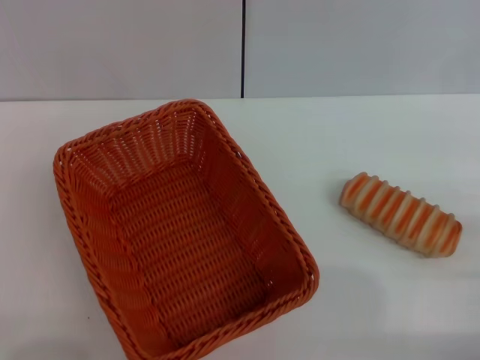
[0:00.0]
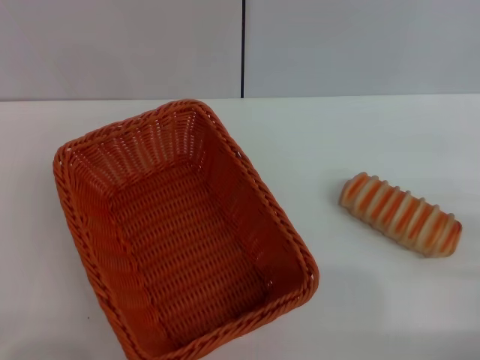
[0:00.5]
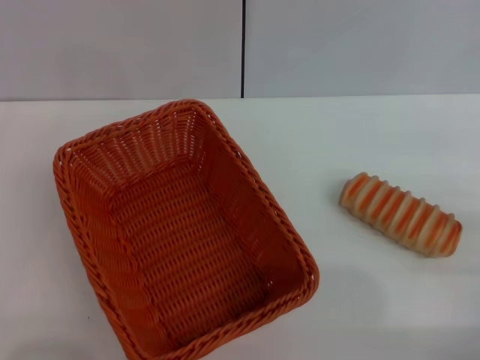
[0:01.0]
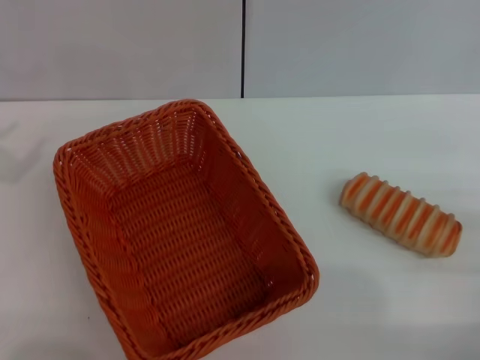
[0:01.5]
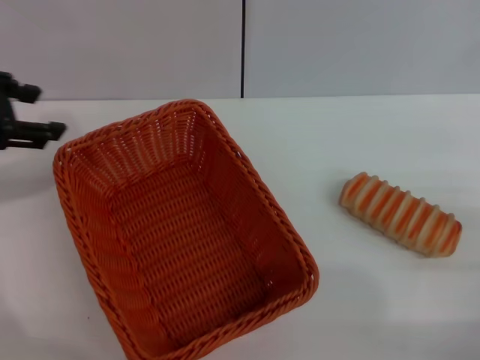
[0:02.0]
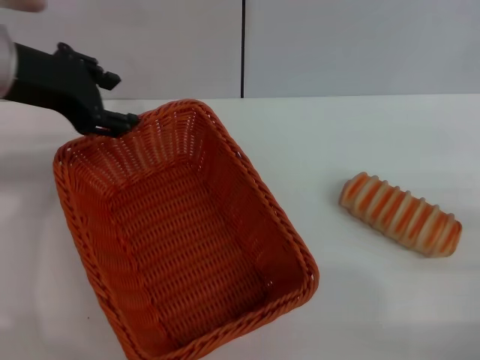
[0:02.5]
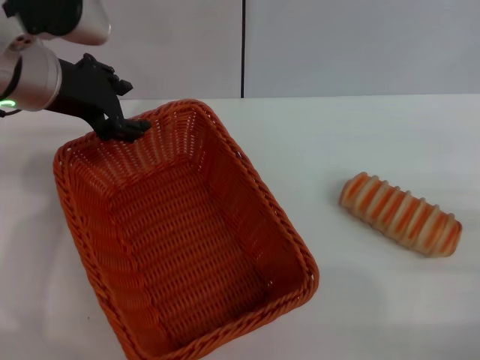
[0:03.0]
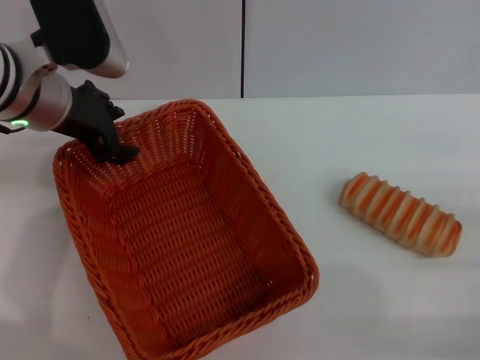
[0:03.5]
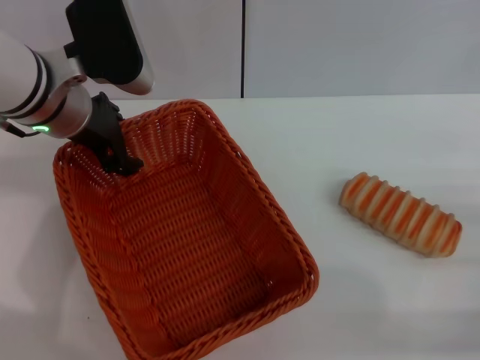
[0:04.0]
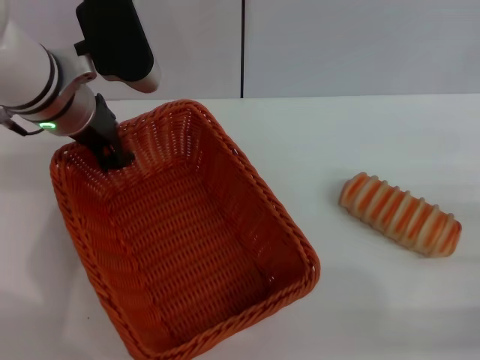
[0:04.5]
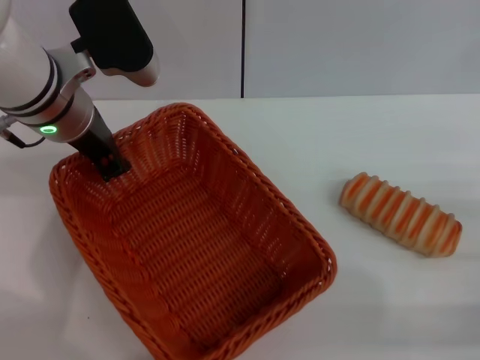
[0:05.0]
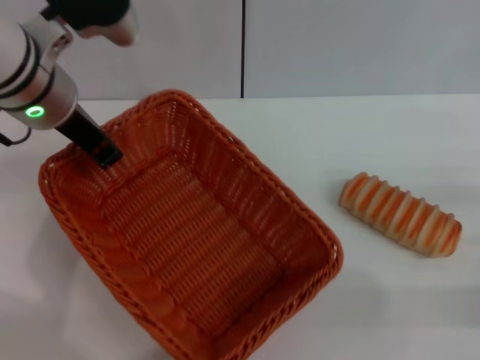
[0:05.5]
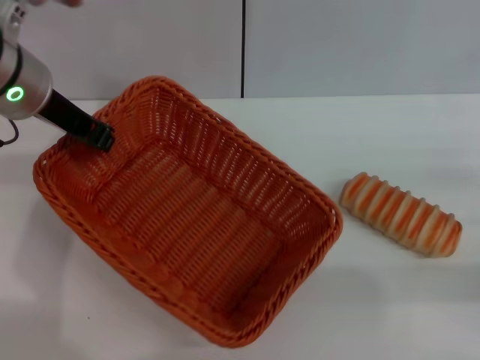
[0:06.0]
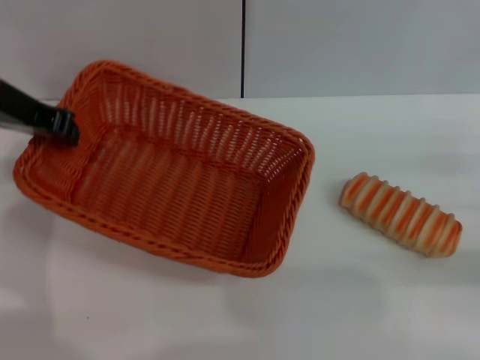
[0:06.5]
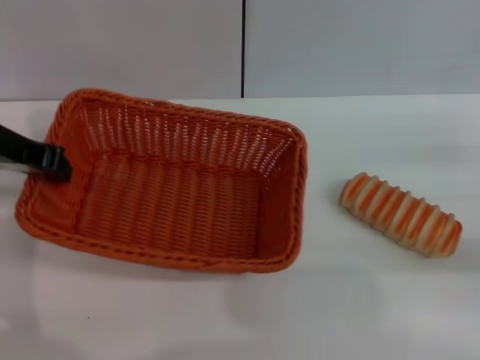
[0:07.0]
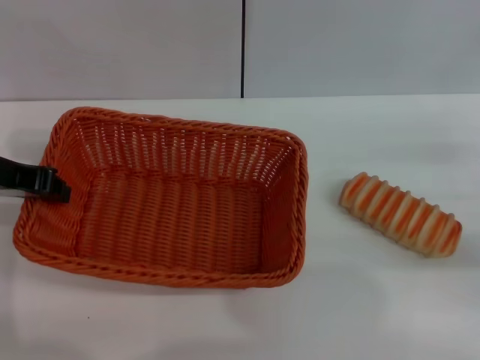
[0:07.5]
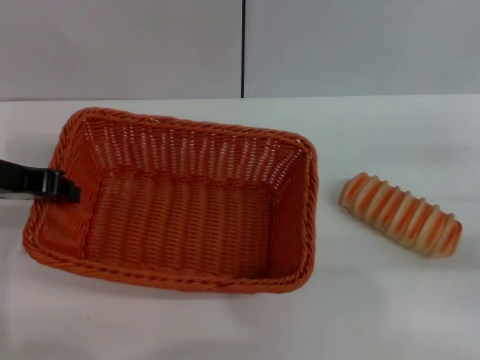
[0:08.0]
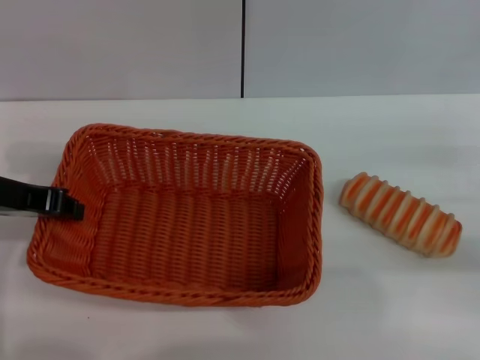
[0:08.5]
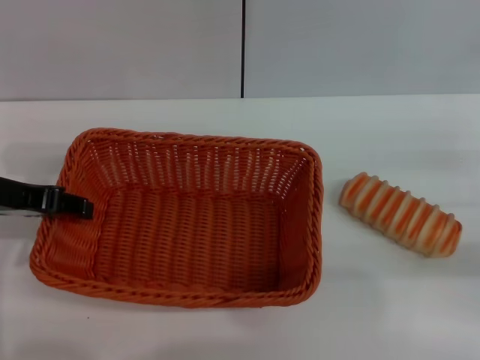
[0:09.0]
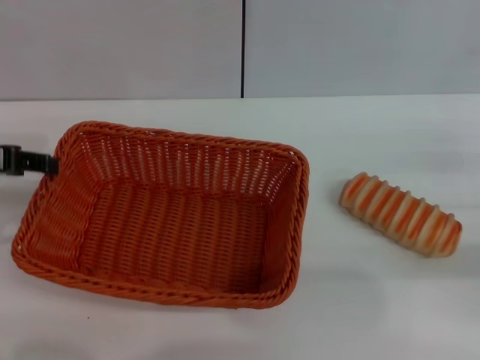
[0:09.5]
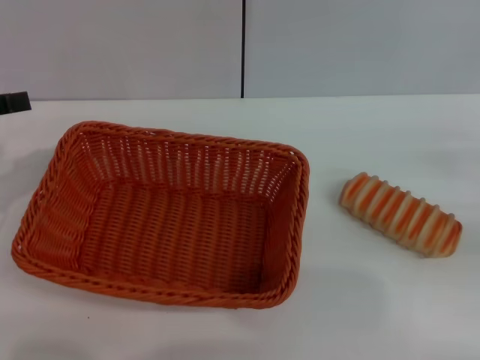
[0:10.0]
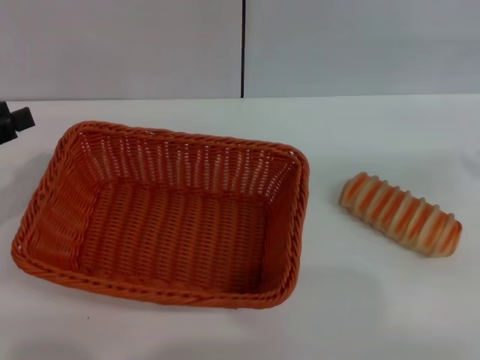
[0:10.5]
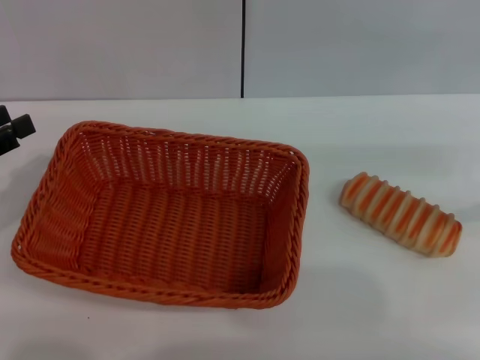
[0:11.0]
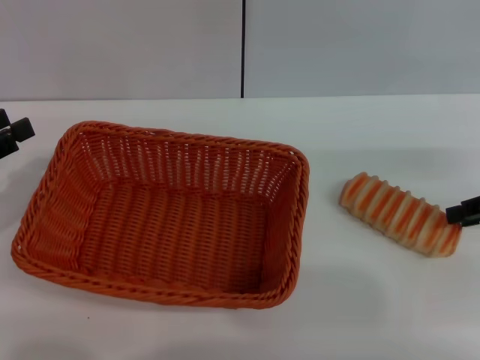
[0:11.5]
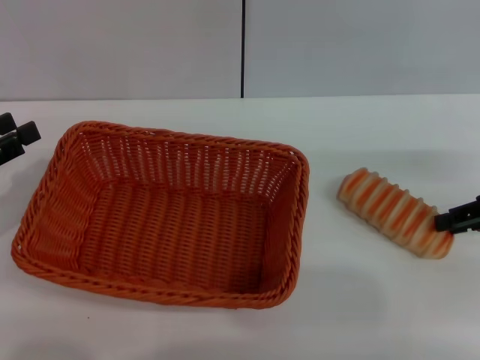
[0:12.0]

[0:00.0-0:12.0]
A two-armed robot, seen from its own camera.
Step, 0:00.0 to 0:05.5: Pick up the light basket with the left gripper.
Step, 0:06.0 to 0:09.5: Place the light basket in the center of view with the left gripper.
0:00.0 to 0:02.0: The left gripper goes about 30 cm upward and forward.
0:02.0 to 0:04.0: The left gripper travels to the right, downward and forward by approximately 15 cm.
0:04.0 to 0:06.0: The left gripper closes up. The right gripper changes place by approximately 5 cm.
0:06.0 to 0:08.0: The left gripper is displaced to the left and backward by about 10 cm.
0:08.0 to 0:10.0: The left gripper heads to the left, covering approximately 10 cm, and opens its fingers.
0:10.0 to 0:12.0: The left gripper goes about 10 cm downward. Meanwhile the right gripper is displaced to the left and forward by roughly 10 cm, and travels upward and back again, roughly 10 cm each way.

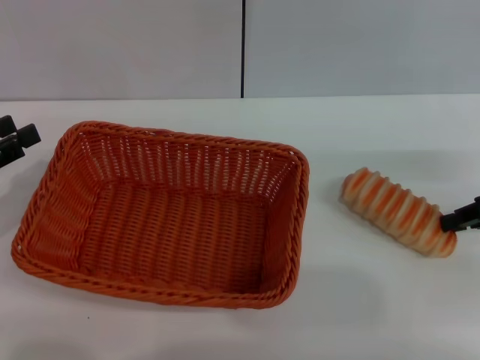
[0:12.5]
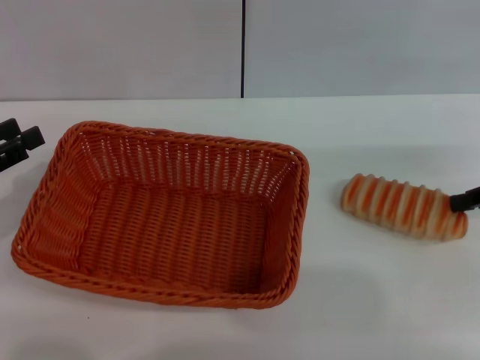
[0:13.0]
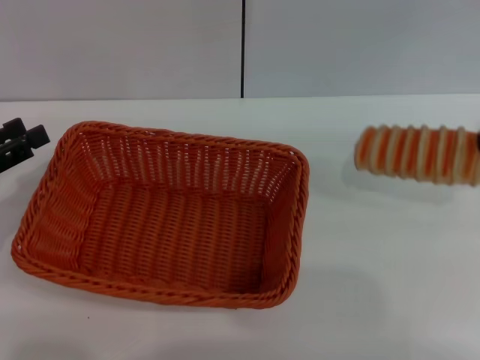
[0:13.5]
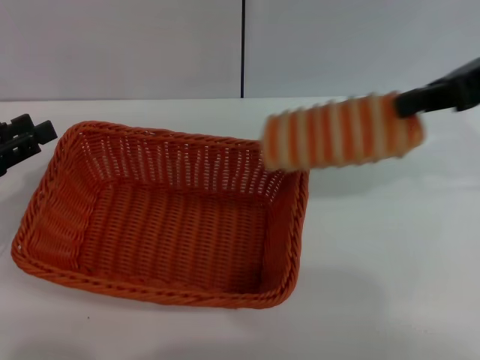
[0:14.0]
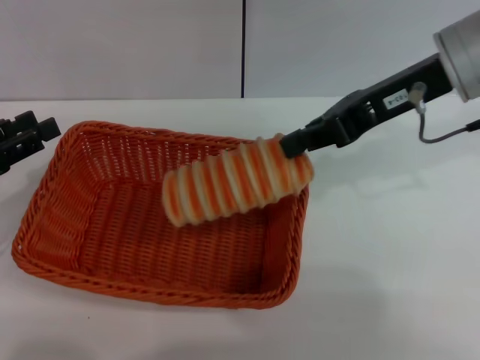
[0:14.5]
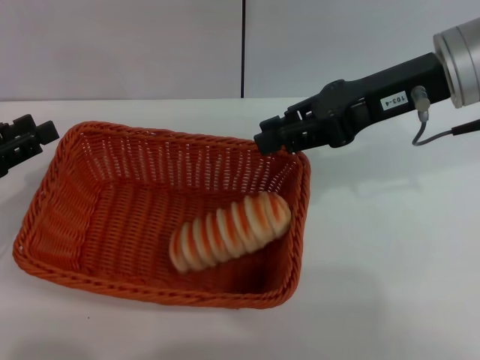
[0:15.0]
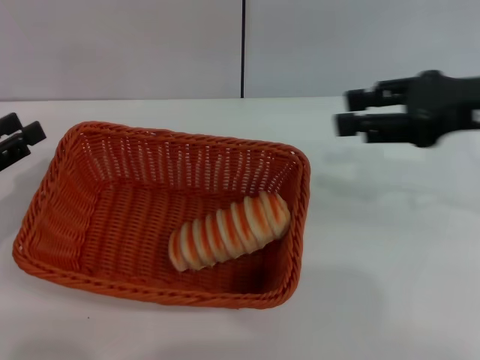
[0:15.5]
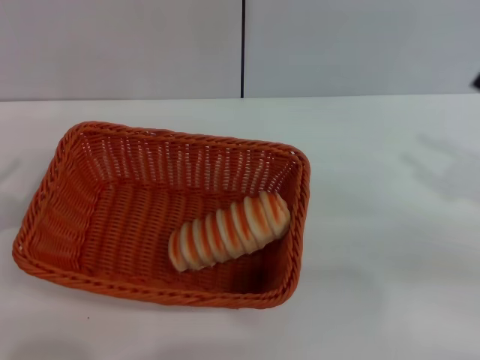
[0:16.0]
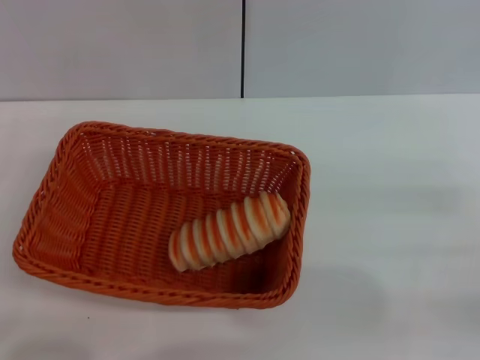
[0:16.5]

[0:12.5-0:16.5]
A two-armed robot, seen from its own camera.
Step, 0:13.5 to 0:15.0: Place the long bread into the light basket with the right gripper.
0:12.5 to 0:14.5: The right gripper travels to the left and upward by about 20 cm.
0:14.5 to 0:16.5: The right gripper is displaced to the right, downward and backward by some 30 cm, and opens up. The left gripper goes about 15 cm backward and downward.
